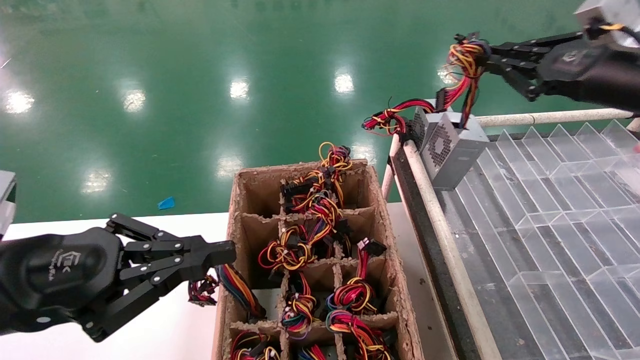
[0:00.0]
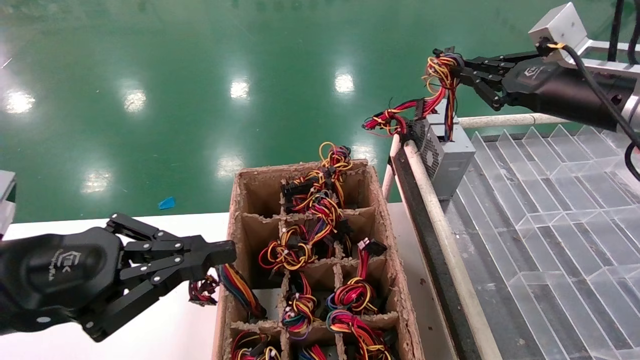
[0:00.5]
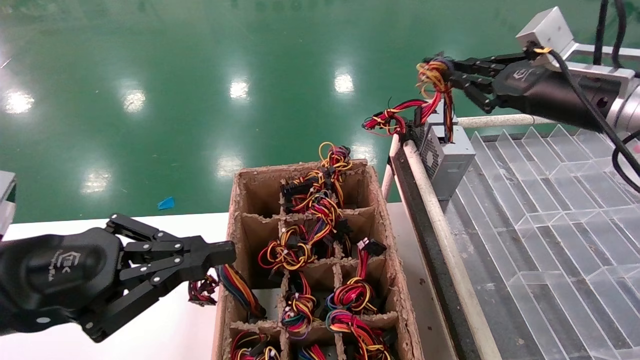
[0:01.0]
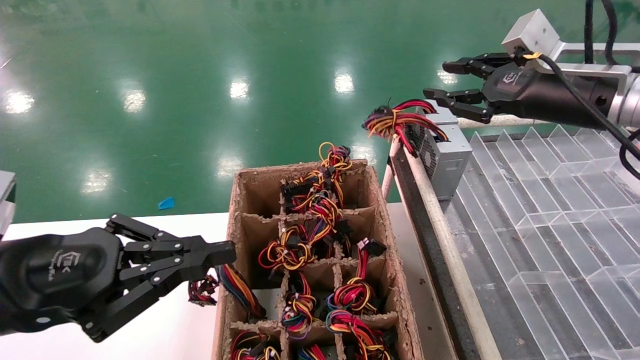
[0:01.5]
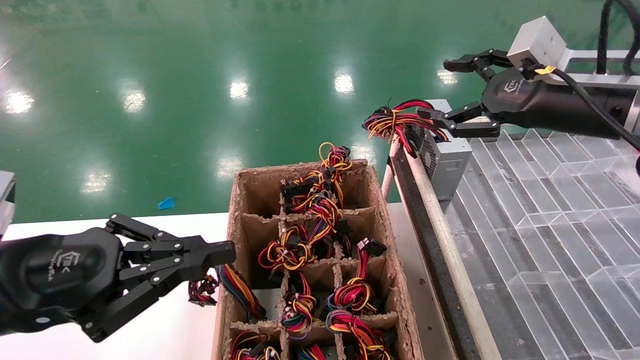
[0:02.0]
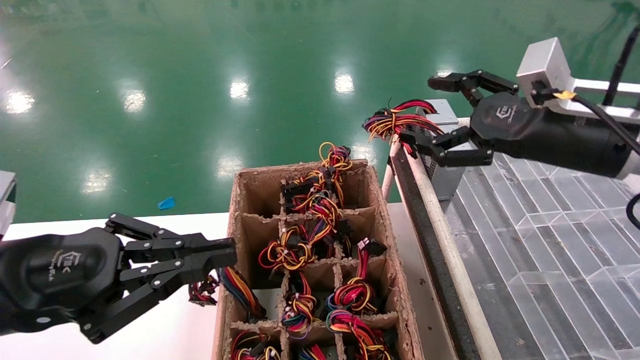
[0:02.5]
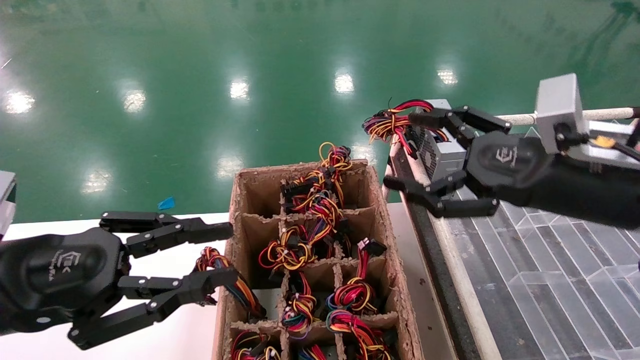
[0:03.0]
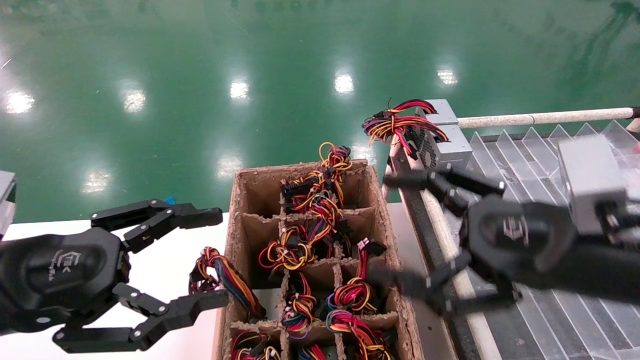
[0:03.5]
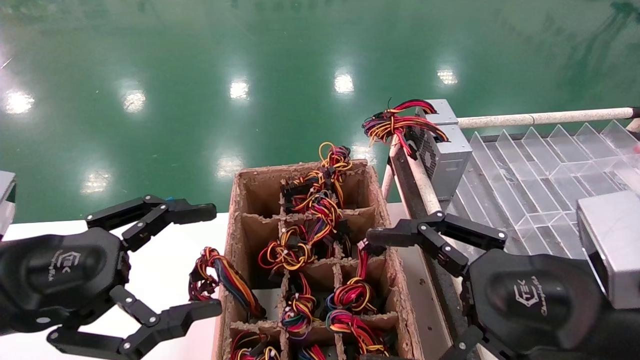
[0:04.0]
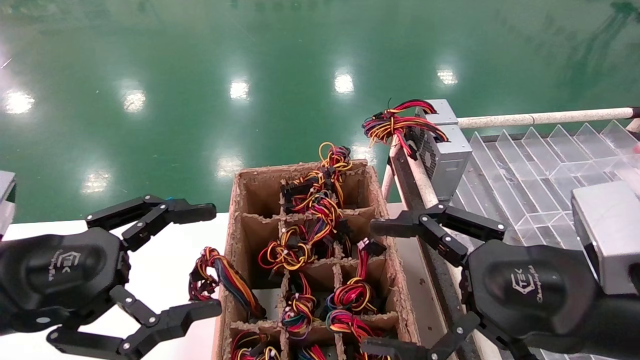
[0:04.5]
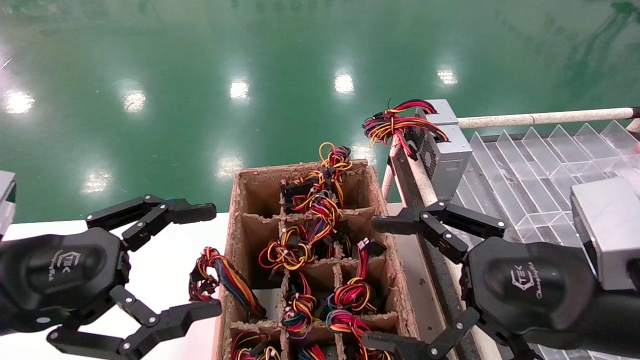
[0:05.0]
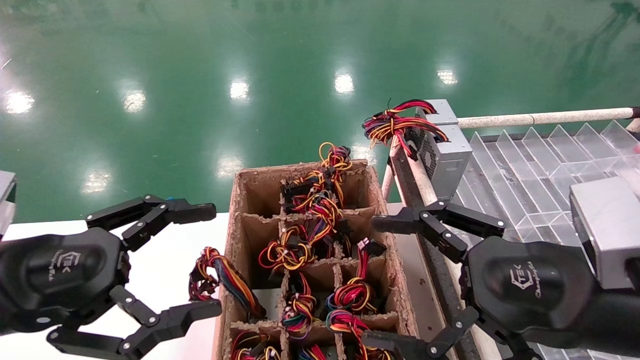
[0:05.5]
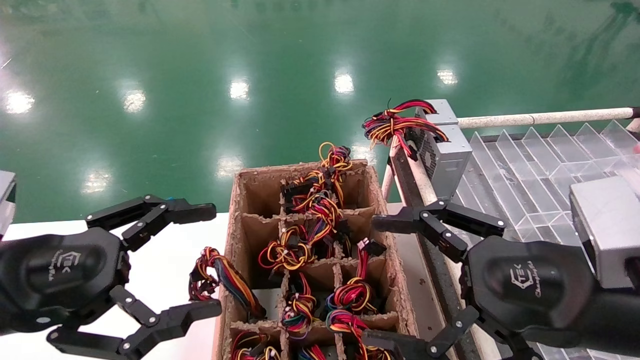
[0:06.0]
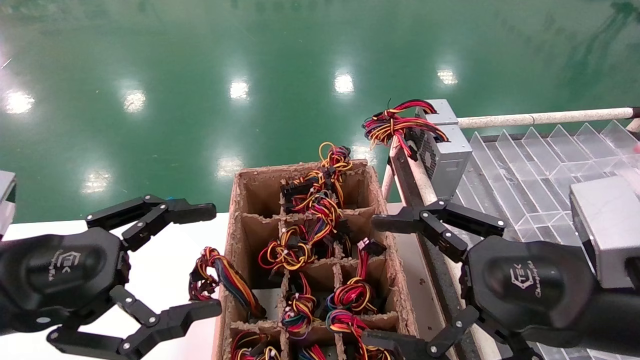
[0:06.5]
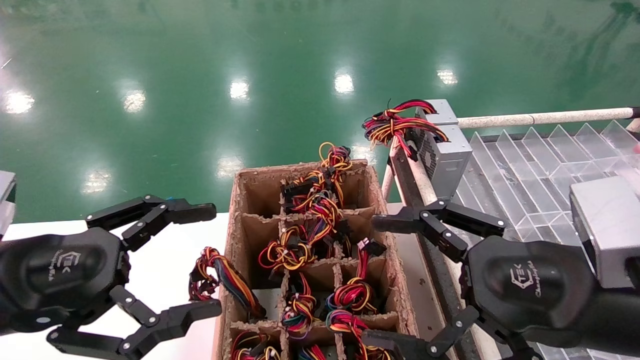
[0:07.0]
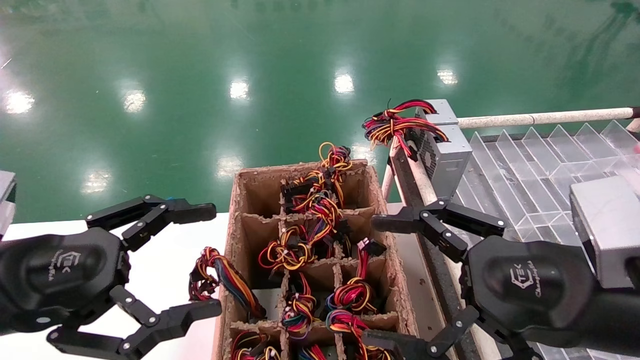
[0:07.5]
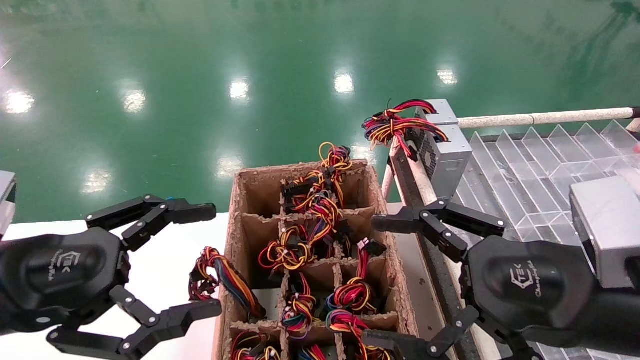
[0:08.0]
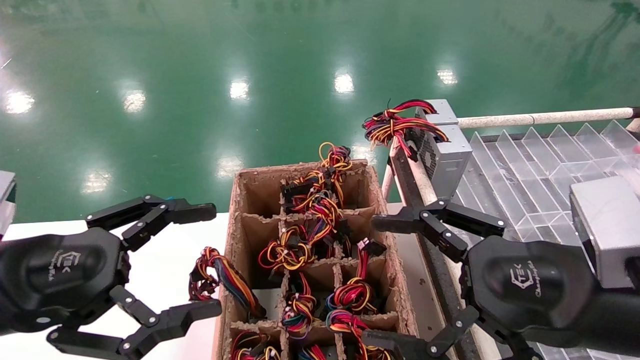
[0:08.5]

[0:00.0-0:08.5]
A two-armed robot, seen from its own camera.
0:00.0 to 0:02.0: The right gripper shifts some 5 cm to the left, and opens its fingers.
0:02.0 to 0:04.0: The right gripper is displaced backward, downward and to the left by roughly 25 cm. The left gripper opens.
0:04.0 to 0:08.5: The two grippers keep their place.
